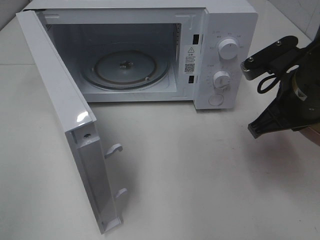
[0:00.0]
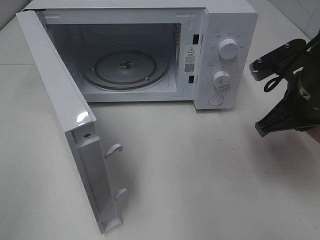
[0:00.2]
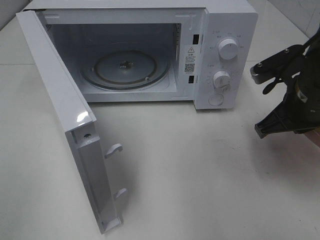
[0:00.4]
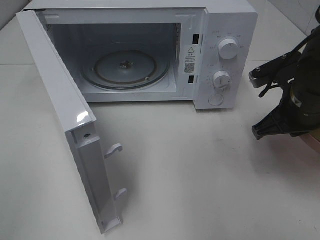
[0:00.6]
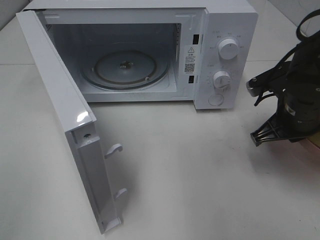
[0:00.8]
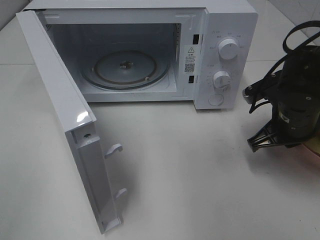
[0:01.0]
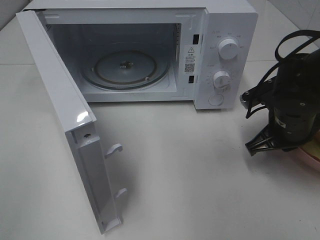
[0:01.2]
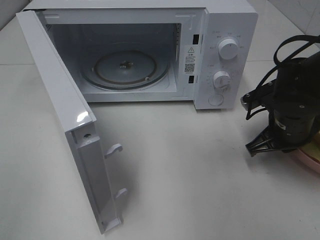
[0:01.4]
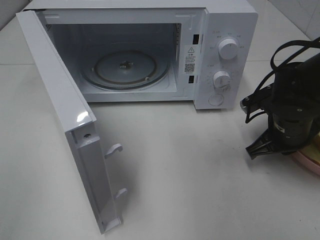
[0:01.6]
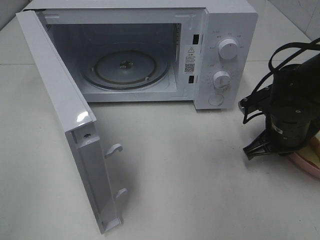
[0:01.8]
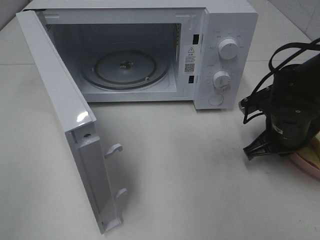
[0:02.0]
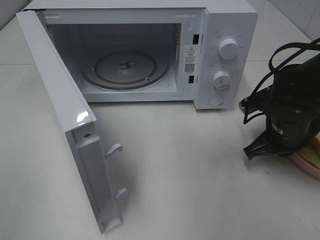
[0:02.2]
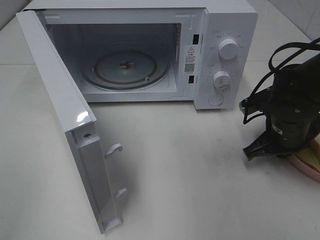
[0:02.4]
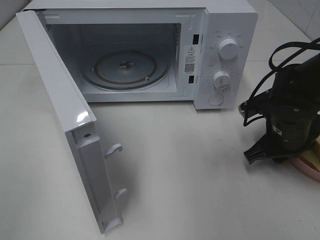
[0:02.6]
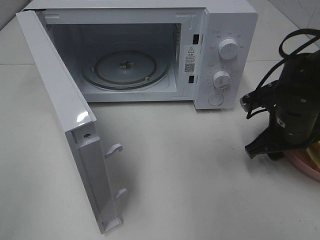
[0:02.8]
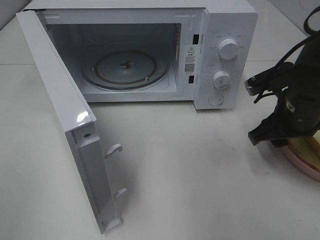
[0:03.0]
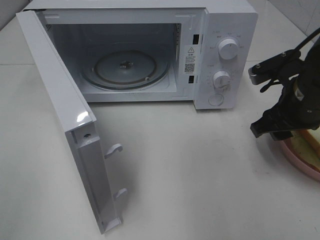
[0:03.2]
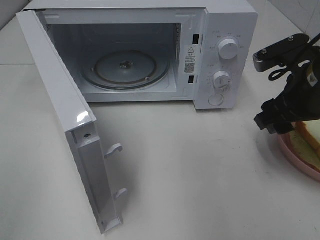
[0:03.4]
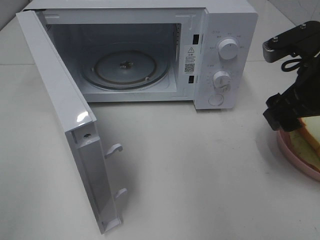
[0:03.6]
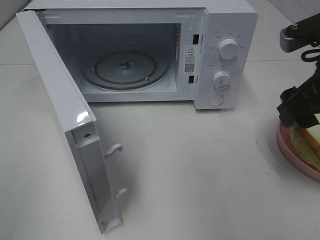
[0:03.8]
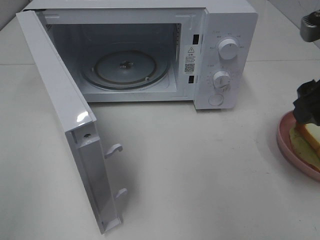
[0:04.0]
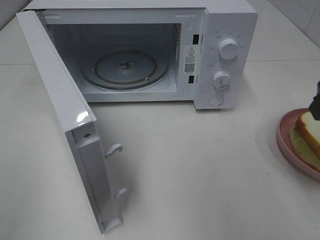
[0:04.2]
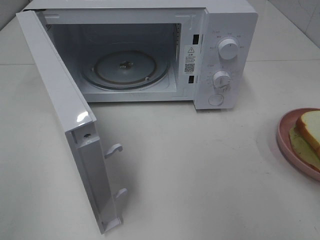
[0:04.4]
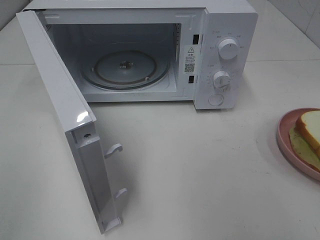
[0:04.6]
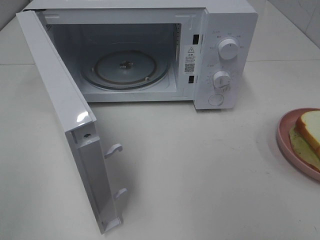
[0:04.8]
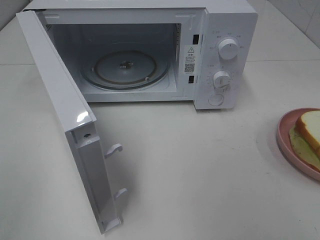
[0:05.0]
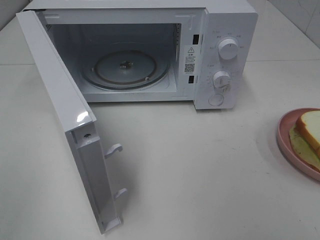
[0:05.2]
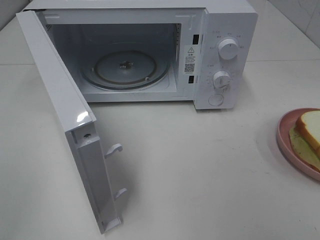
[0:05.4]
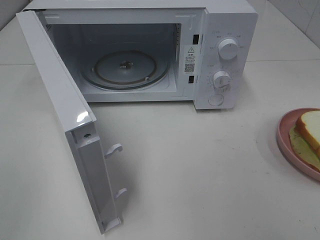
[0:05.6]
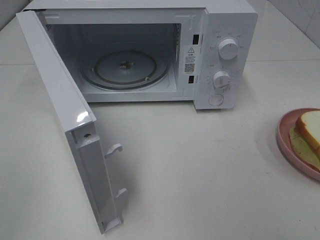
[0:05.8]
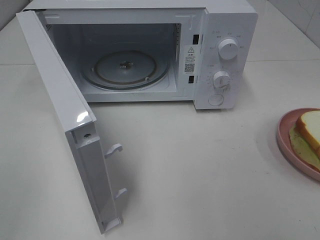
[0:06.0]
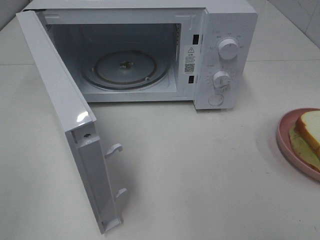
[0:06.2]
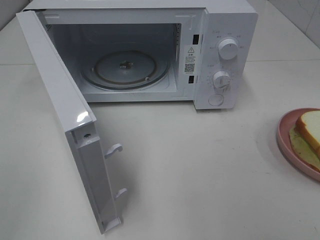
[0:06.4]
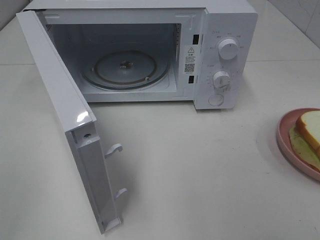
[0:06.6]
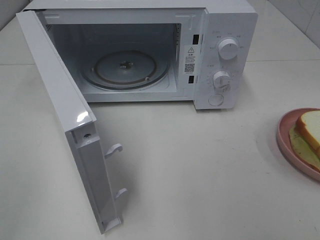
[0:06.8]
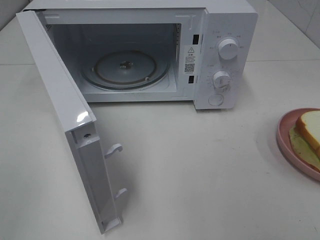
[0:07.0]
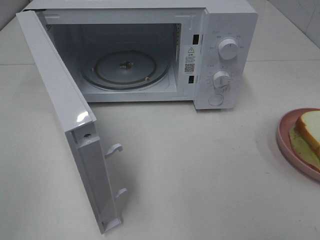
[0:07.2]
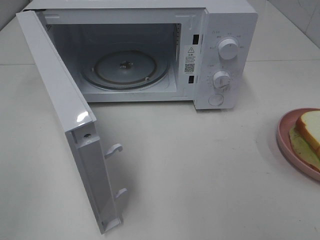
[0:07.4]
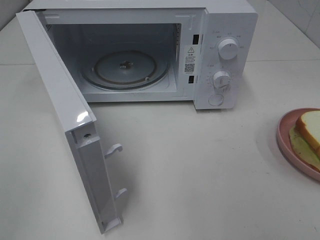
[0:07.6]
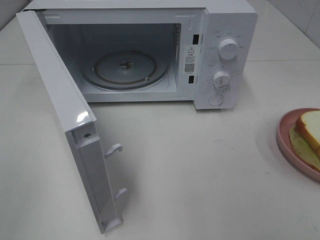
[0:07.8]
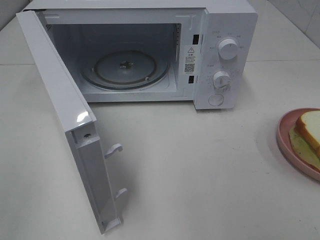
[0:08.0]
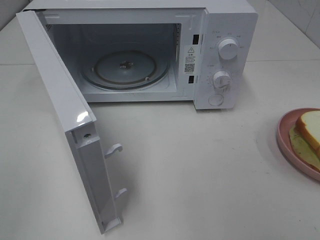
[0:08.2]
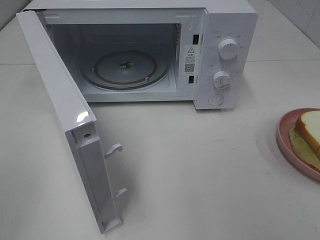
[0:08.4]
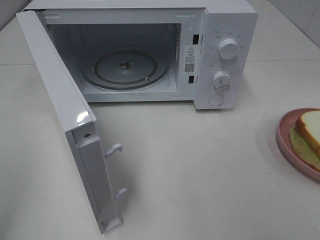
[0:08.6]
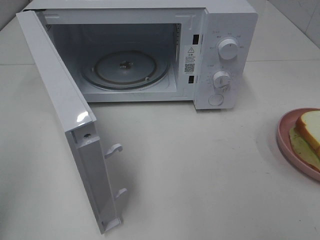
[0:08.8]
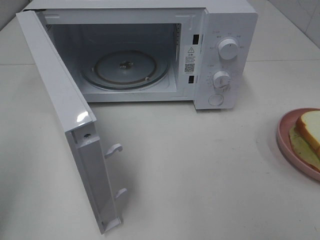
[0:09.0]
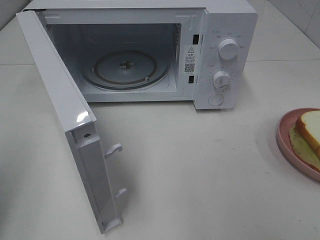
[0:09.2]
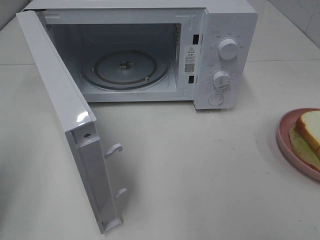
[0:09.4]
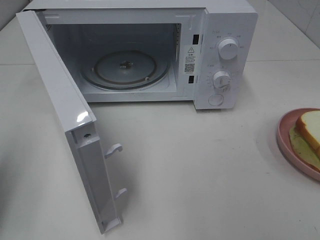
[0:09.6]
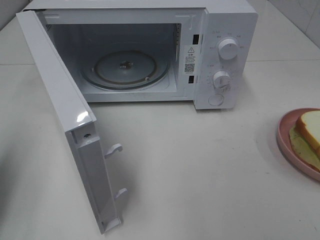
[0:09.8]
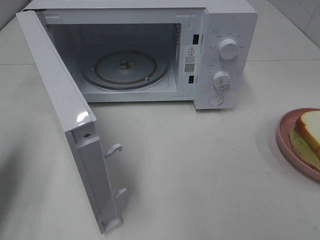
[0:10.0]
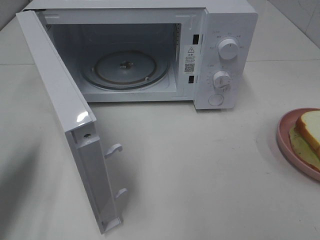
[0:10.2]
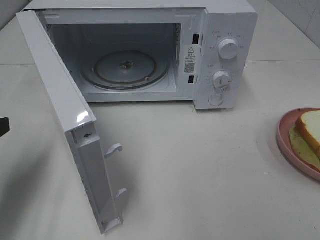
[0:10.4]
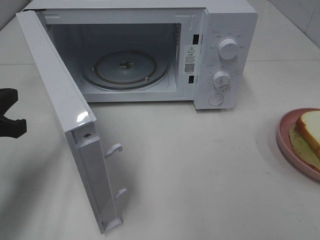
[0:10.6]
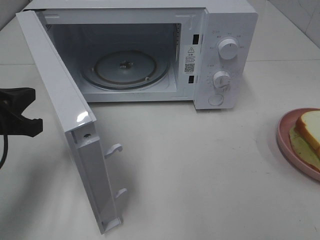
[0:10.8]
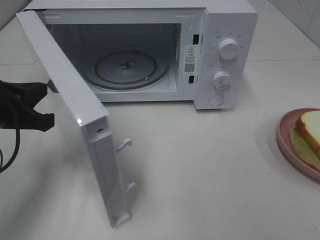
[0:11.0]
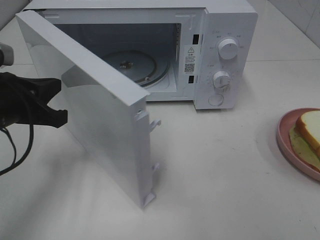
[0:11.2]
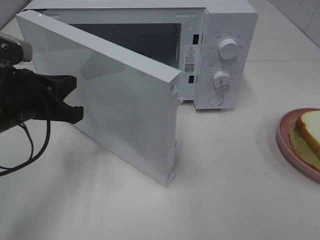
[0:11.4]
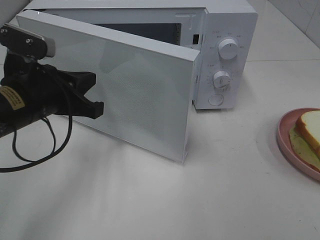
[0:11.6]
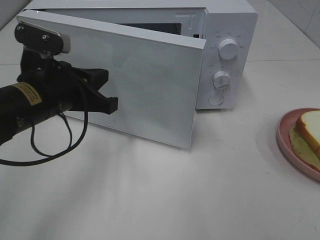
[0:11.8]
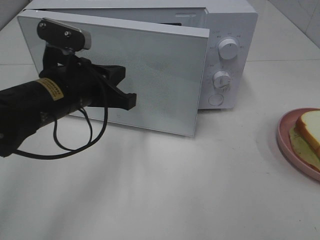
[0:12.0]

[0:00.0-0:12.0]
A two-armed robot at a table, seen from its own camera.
Task of the whole recording: Heat Sandwich.
Step, 0.0 to 3.8 s: Right hand: place the plate on the table.
0.0 to 1.6 s: The right gripper heads downward, covering about 10 cm.
1.6 to 3.0 s: The right gripper goes about 5 cm upward, and opens.
3.0 to 4.4 s: The right gripper is displaced upward and backward by approximately 20 cm.
9.0 to 10.4 s: The left gripper goes about 15 cm forward and downward.
10.4 to 12.0 s: The left gripper goes approximately 15 cm to the right.

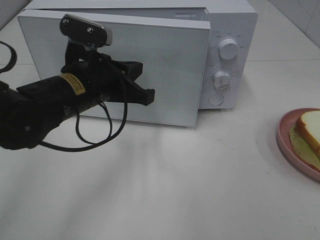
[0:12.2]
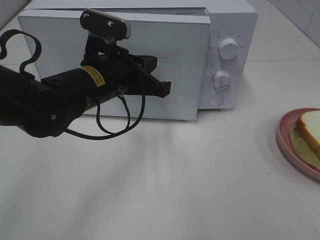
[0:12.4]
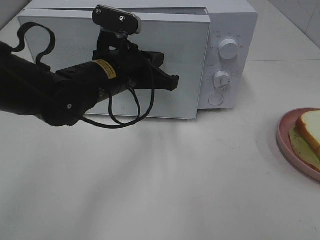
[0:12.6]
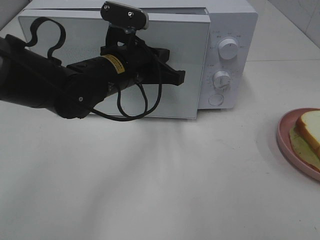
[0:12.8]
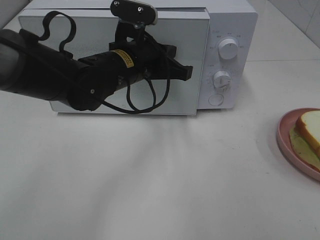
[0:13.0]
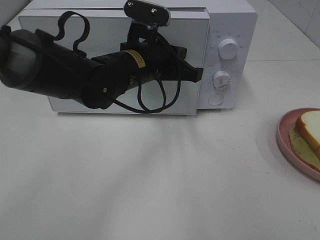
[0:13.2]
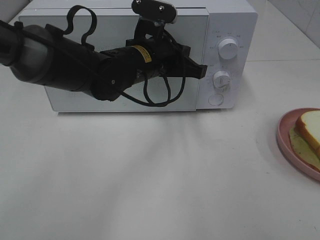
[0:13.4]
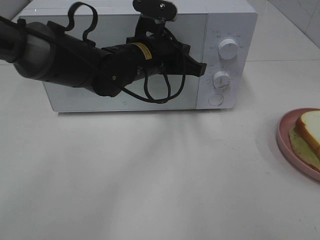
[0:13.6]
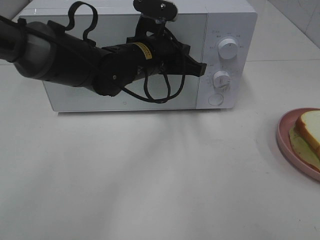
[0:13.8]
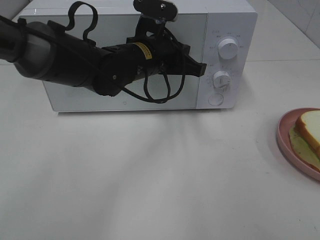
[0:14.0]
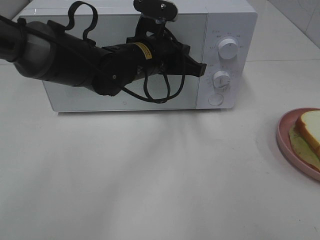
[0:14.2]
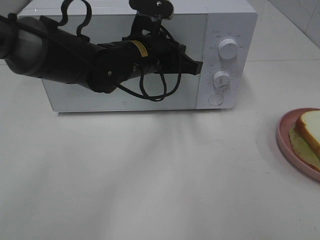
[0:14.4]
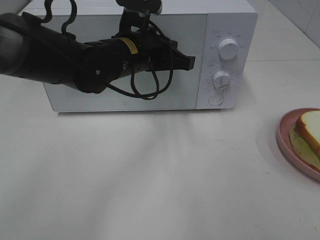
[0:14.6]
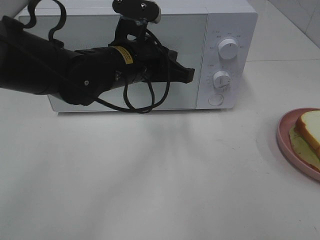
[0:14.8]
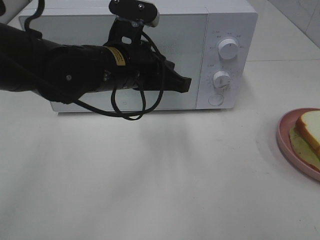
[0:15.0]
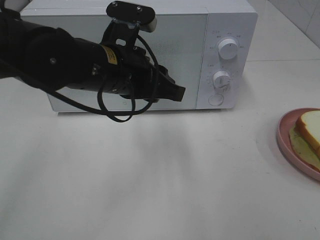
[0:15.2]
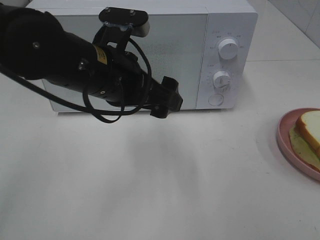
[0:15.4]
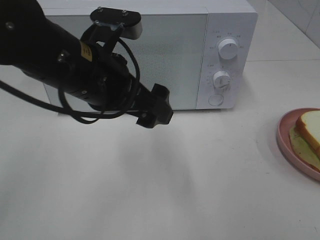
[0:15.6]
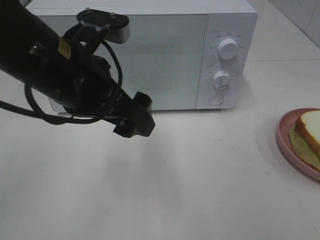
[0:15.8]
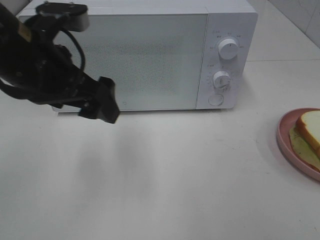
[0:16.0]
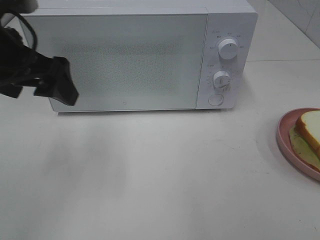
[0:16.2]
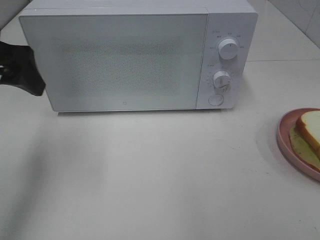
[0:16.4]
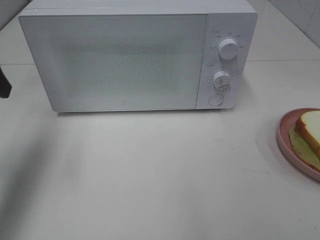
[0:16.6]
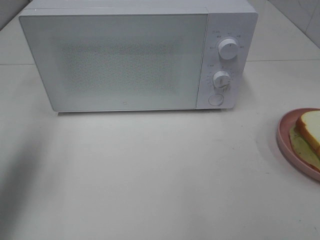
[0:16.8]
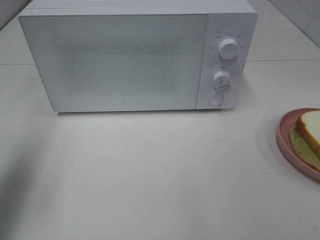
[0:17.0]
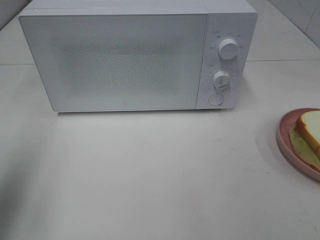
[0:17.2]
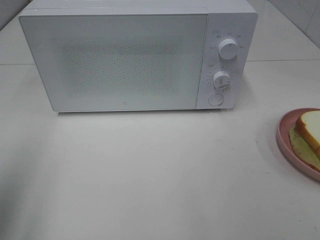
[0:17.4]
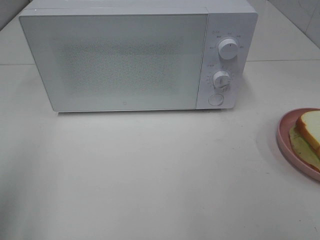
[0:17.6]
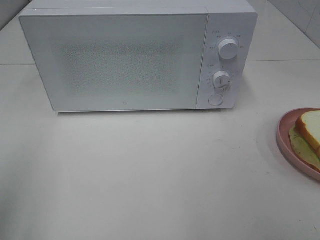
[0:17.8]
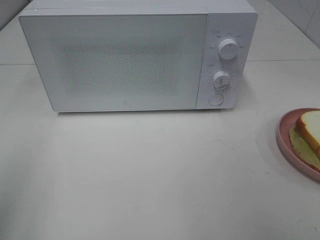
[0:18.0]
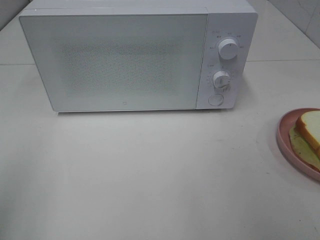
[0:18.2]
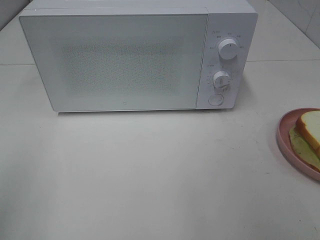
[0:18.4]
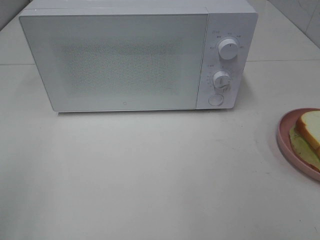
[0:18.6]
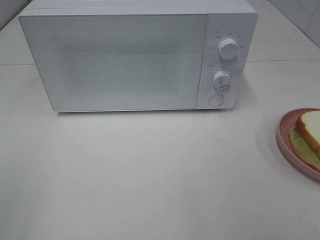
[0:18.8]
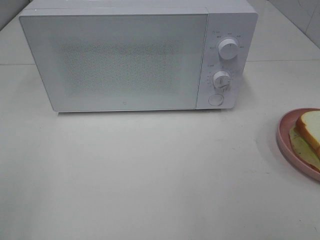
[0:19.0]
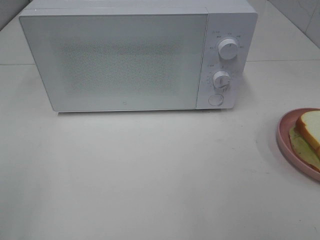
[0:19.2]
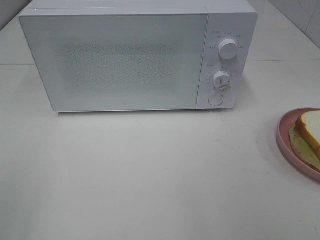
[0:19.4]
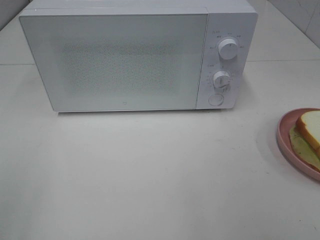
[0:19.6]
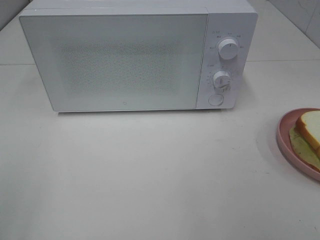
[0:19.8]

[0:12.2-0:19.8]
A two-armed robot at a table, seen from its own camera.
Task of the whole recording: Heat Sandwich.
Step, 12.2 to 14.8 s: Left hand: close the microwave door.
12.2 to 13.8 s: The left gripper is displaced forward and to the right by about 10 cm.
13.8 to 15.2 s: The left gripper moves backward, approximately 10 cm, and opens its fingers.
15.2 to 16.8 s: The left gripper is displaced to the left by roughly 25 cm, and opens.
16.8 to 18.2 s: The left gripper travels backward by about 15 cm.

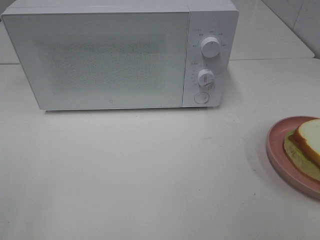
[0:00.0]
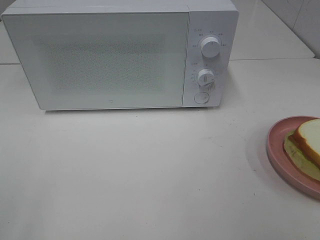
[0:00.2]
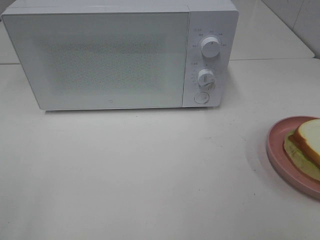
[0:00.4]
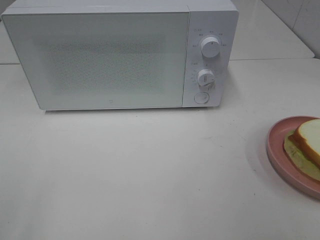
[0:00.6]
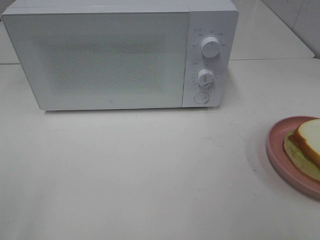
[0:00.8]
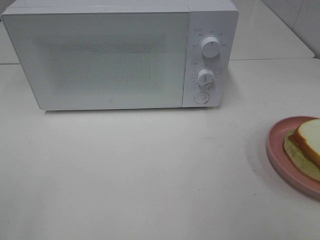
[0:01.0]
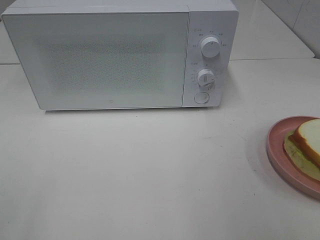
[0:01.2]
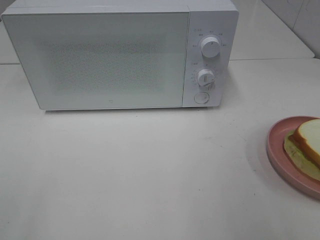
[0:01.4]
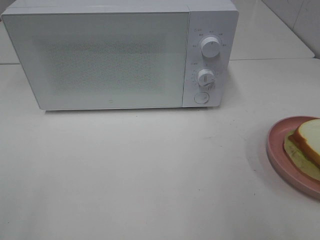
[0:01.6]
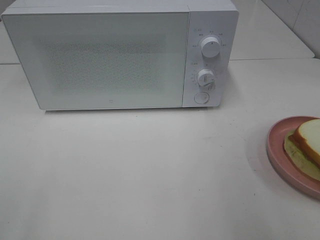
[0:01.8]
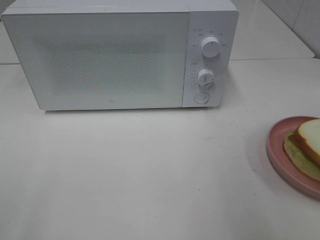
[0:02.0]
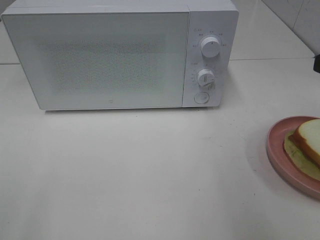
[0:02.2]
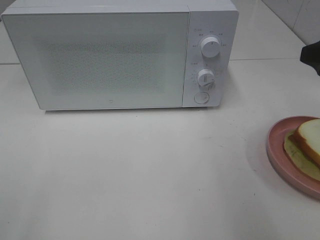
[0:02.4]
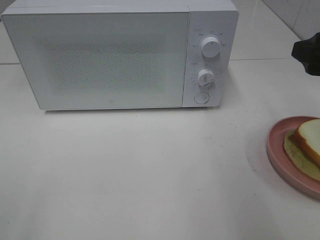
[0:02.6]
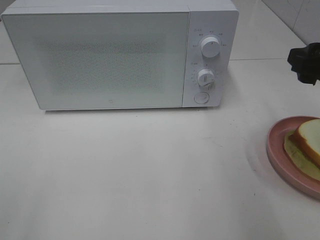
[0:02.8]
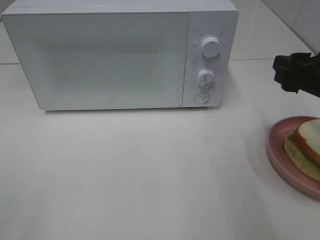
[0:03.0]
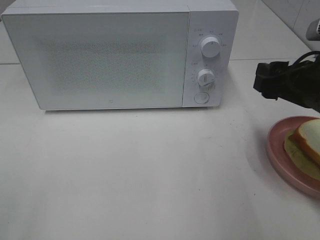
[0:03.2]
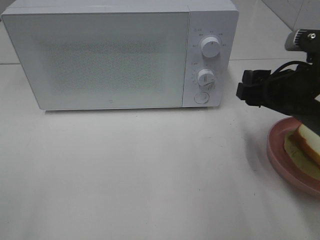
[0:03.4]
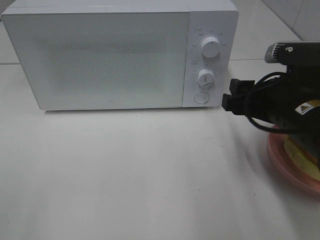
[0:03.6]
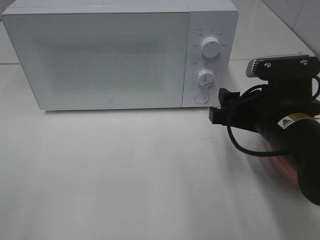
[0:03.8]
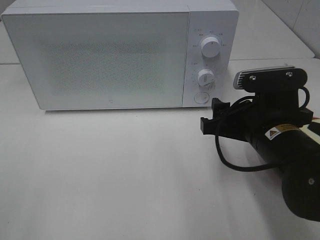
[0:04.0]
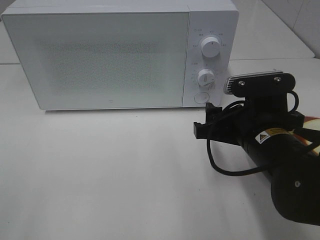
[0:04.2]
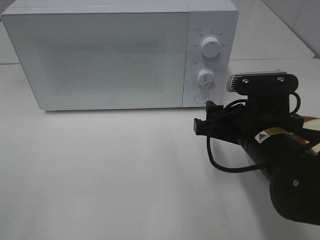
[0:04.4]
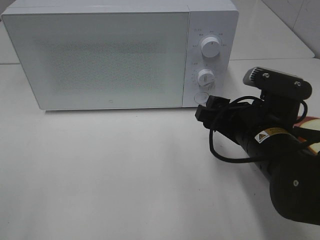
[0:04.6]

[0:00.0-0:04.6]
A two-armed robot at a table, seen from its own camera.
Task of the whole recording: Heat Sandwich.
1.6 to 3.0 s: The right gripper shifts about 15 cm forward and downward.
3.0 to 4.6 s: The right gripper travels to the left and downward by approximately 15 cm.
